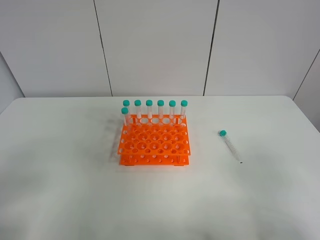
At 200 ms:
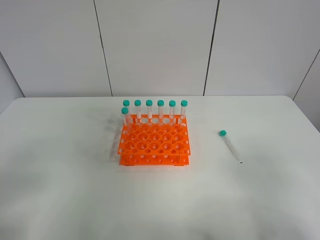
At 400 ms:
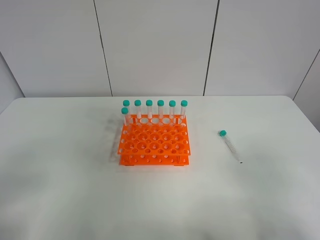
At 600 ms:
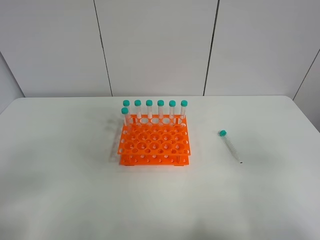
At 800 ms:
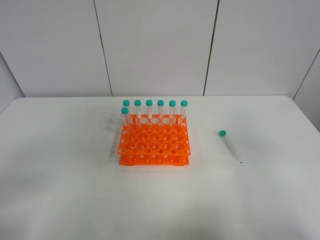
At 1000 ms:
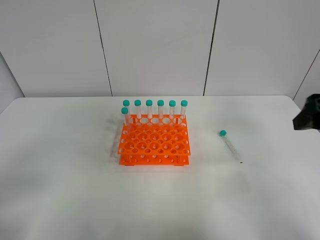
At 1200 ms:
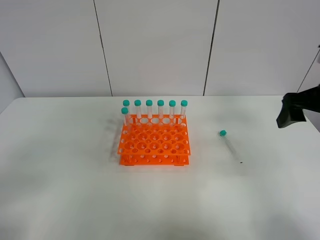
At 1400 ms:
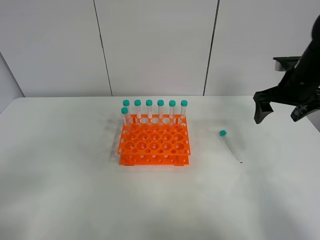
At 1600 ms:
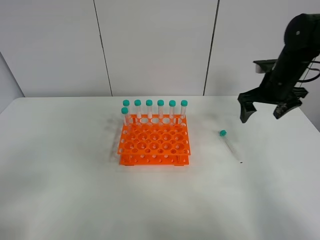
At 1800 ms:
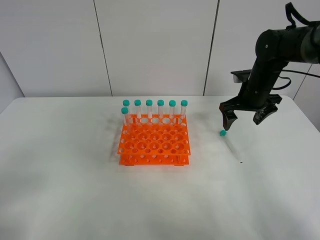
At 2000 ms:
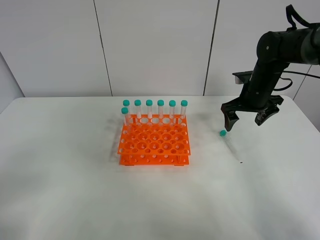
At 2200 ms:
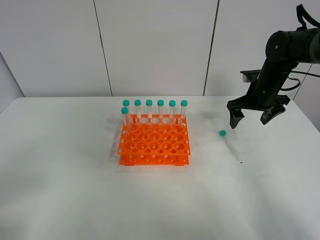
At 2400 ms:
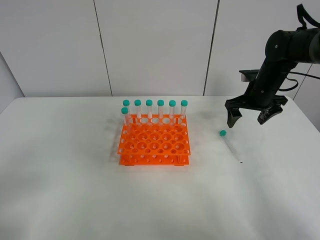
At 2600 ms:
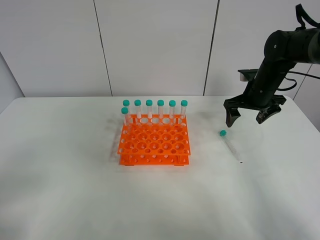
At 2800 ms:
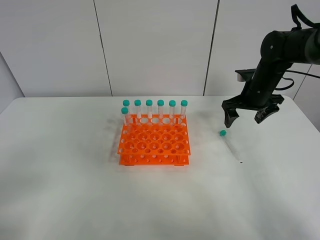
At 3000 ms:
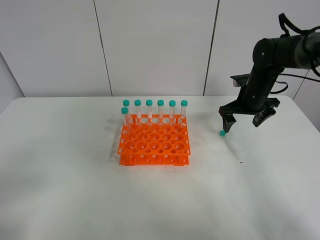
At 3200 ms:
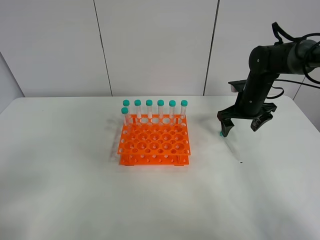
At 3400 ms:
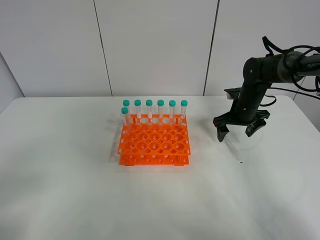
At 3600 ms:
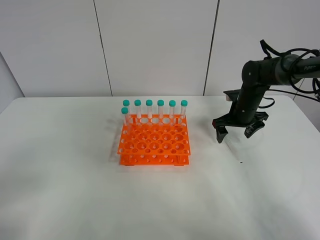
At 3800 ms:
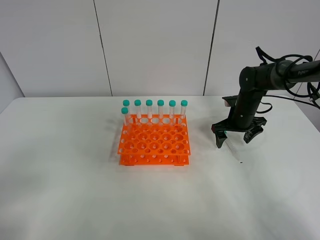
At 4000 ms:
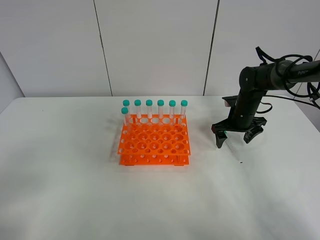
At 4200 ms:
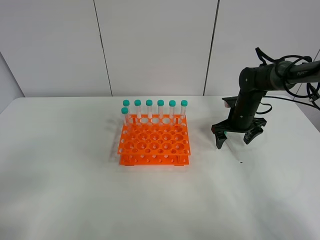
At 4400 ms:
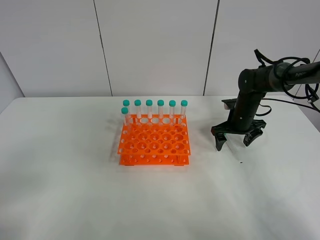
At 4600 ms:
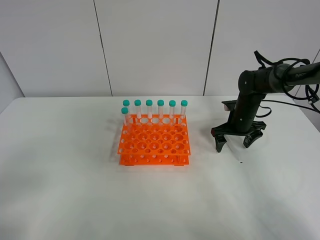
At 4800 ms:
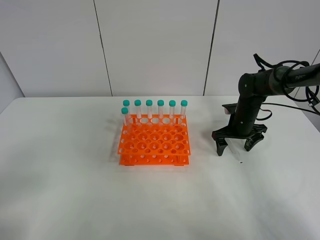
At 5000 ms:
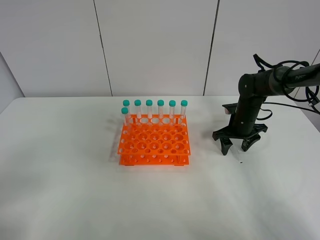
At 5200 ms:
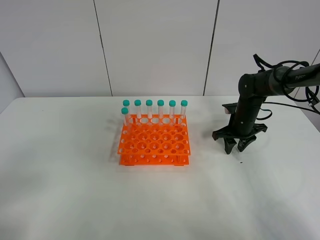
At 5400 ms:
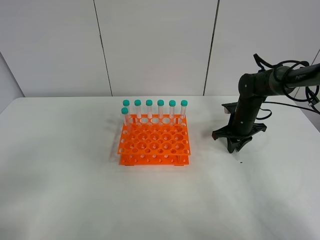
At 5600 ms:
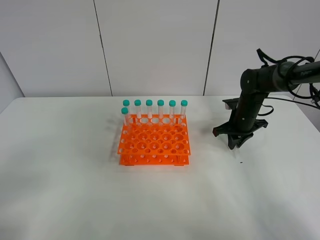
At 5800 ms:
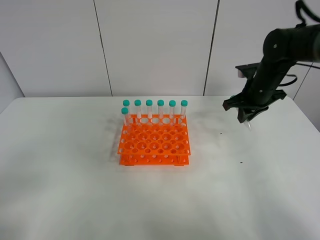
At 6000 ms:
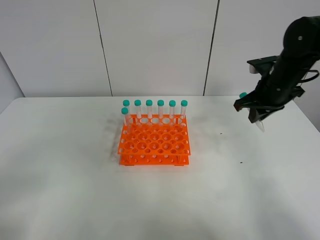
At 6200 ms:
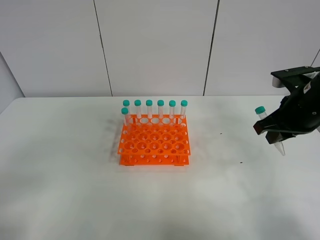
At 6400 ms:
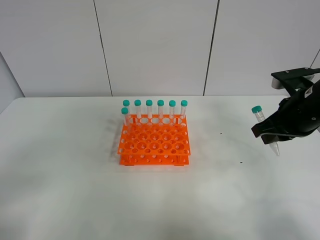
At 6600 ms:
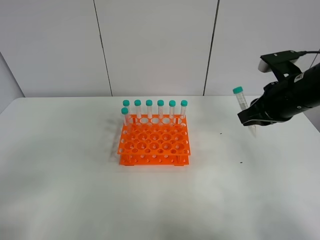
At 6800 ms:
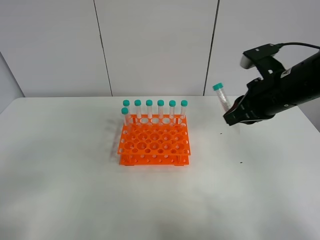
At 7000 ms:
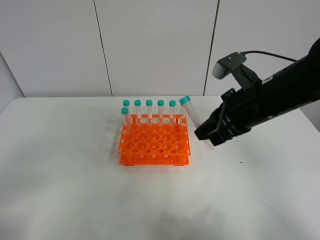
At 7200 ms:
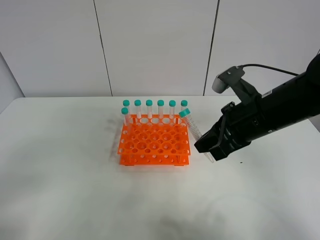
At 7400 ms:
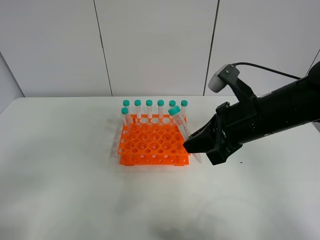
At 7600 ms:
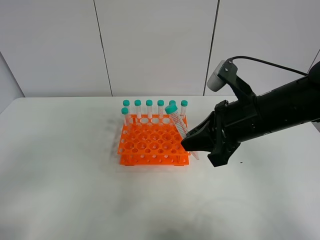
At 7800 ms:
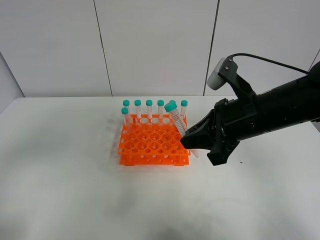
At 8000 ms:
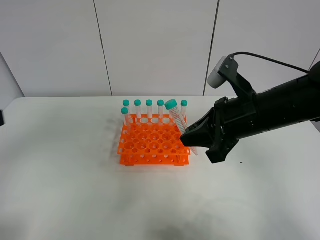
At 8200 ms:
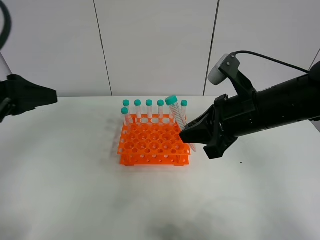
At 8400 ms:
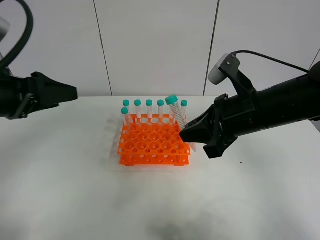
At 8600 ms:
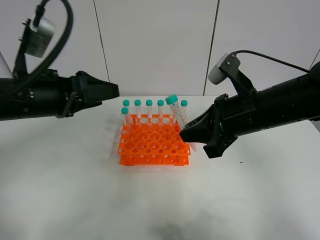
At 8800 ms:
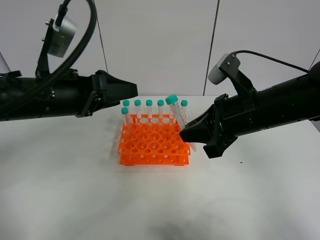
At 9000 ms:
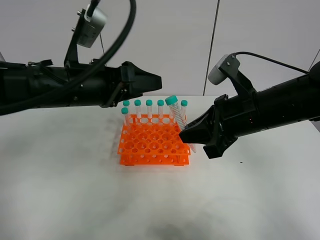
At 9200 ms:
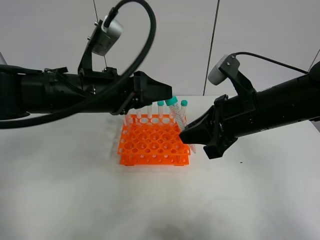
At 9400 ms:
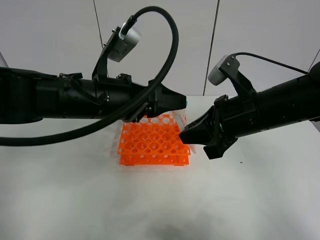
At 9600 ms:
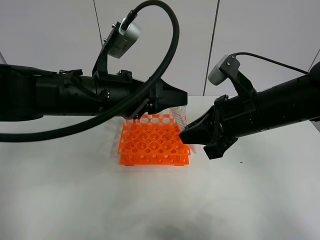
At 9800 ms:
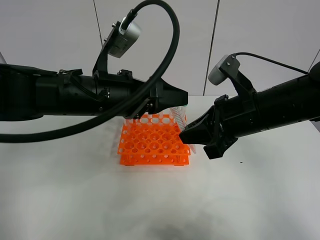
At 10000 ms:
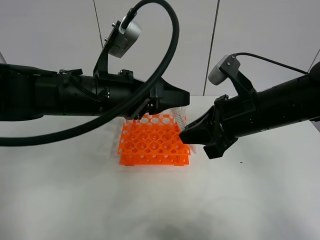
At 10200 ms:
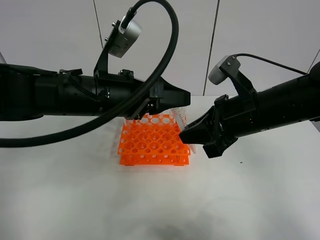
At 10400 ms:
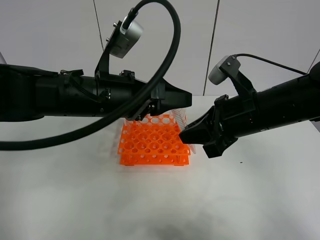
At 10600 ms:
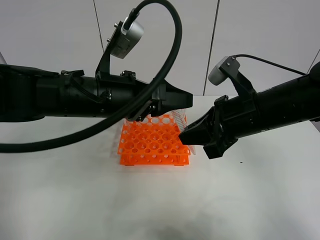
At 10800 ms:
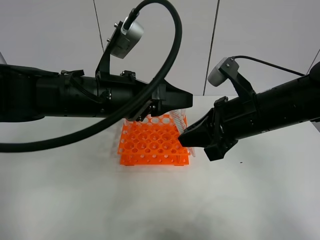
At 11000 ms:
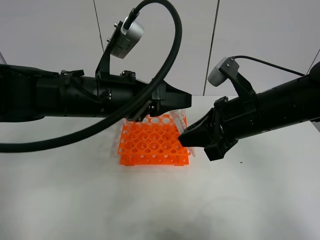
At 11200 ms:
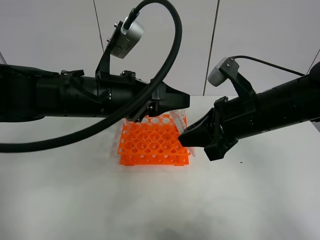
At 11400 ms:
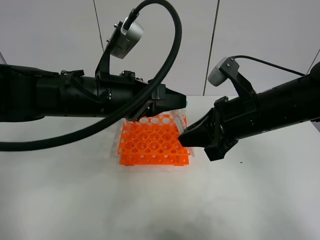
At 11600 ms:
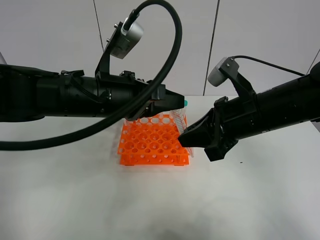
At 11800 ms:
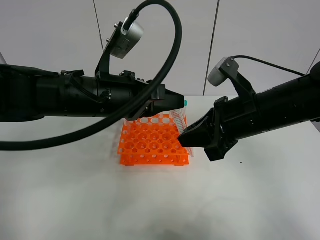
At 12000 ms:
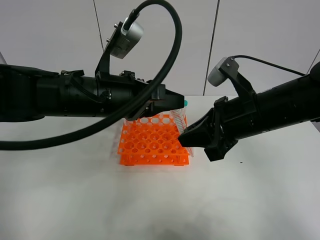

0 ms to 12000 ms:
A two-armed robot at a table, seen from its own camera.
Task of the whole recording: Put the test tube on the table back onto the test tube rack.
Step, 0 ms to 5400 ms: Pick up the test tube with the right gripper.
0 ms to 1600 ms: The right gripper shifts about 40 cm forward.
1600 ms to 3000 ms: The right gripper moves approximately 5 cm.
3000 ms to 4400 ms: The right gripper is displaced downward by roughly 5 cm.
4400 ms to 6000 ms: The right gripper travels upward and backward by roughly 15 cm, and closes.
6000 ms to 7600 ms: The right gripper is displaced backward and to the left by approximately 15 cm.
7600 ms to 9000 ms: The left gripper travels forward and to the right by about 30 cm.
9000 ms to 10400 ms: There are only small adjustments of the grippers.
10400 ms to 12000 ms: The left gripper closes up.

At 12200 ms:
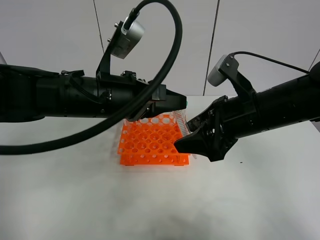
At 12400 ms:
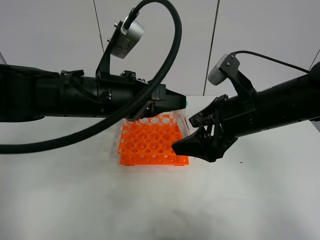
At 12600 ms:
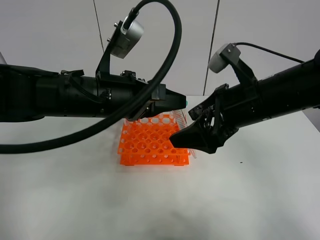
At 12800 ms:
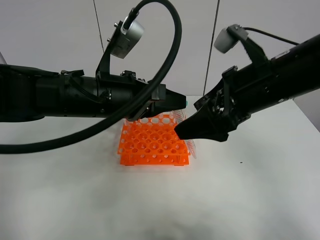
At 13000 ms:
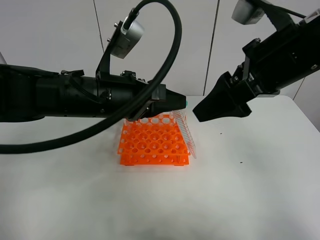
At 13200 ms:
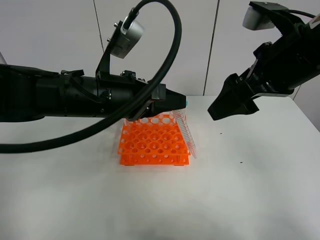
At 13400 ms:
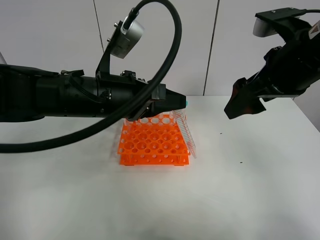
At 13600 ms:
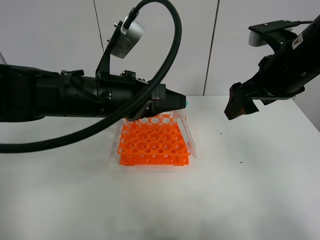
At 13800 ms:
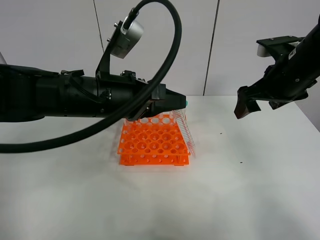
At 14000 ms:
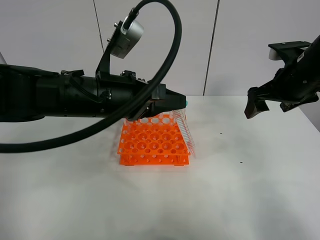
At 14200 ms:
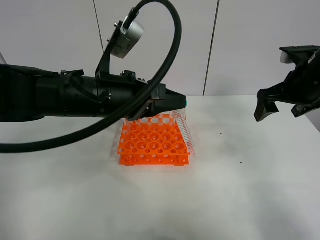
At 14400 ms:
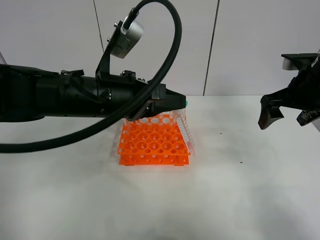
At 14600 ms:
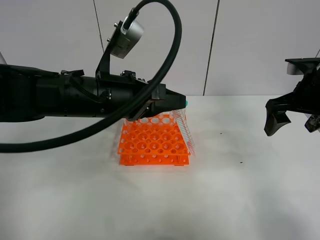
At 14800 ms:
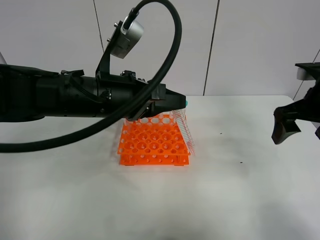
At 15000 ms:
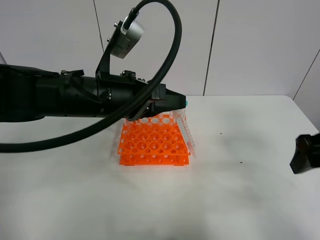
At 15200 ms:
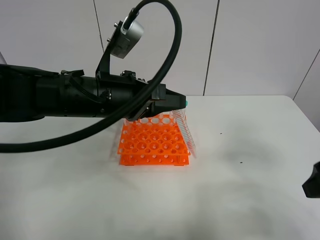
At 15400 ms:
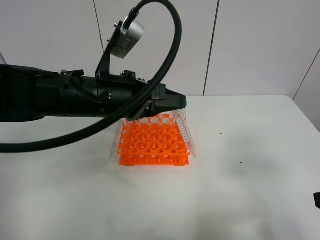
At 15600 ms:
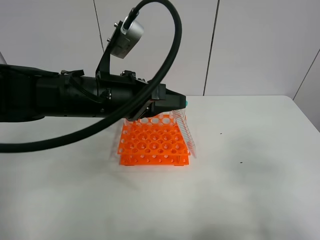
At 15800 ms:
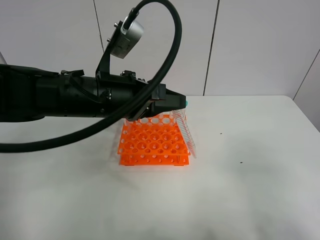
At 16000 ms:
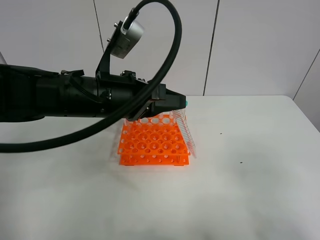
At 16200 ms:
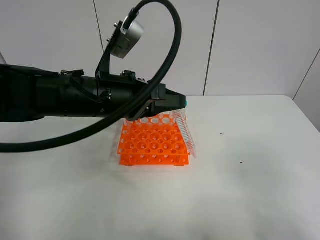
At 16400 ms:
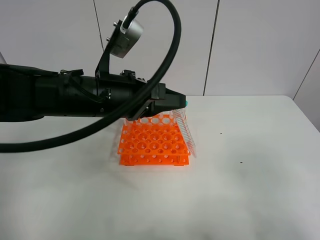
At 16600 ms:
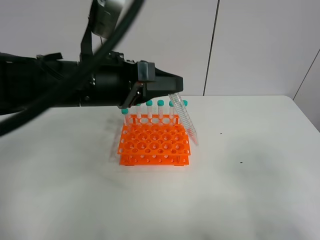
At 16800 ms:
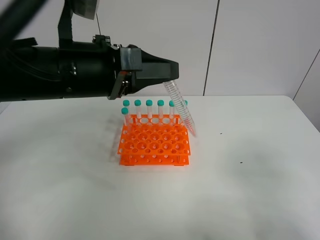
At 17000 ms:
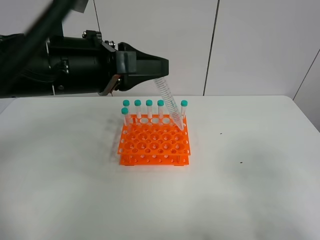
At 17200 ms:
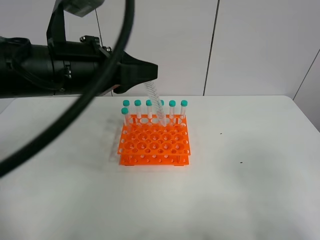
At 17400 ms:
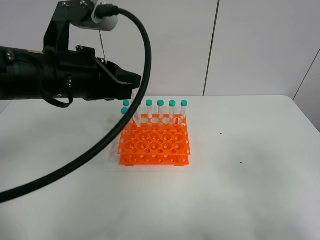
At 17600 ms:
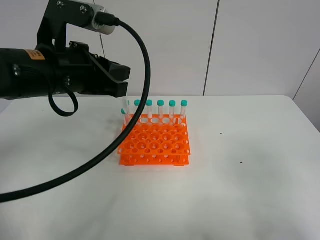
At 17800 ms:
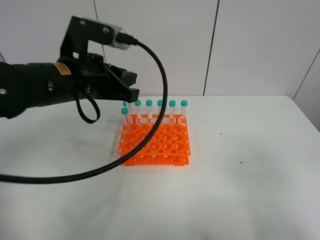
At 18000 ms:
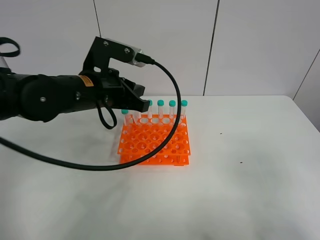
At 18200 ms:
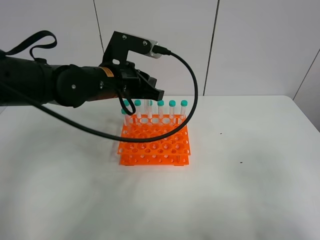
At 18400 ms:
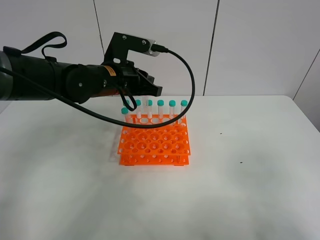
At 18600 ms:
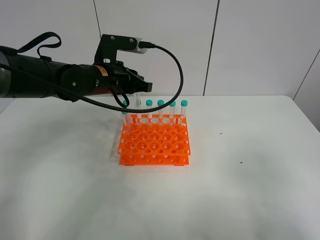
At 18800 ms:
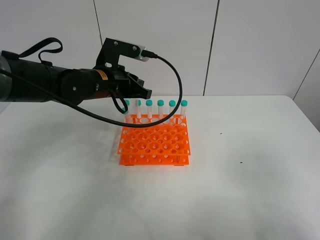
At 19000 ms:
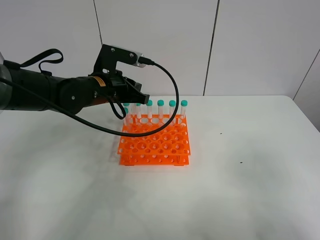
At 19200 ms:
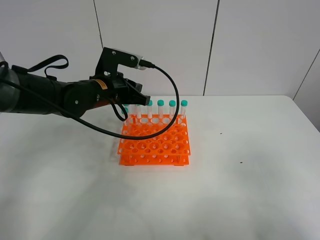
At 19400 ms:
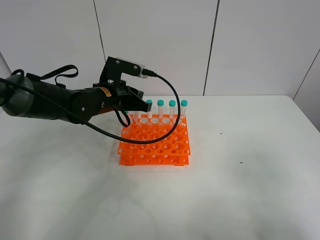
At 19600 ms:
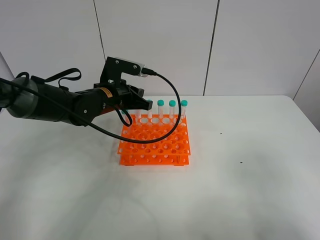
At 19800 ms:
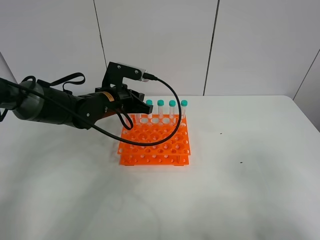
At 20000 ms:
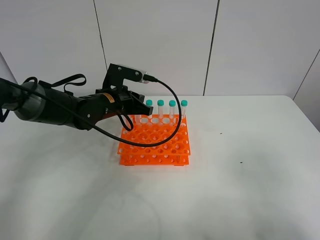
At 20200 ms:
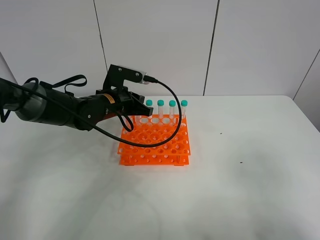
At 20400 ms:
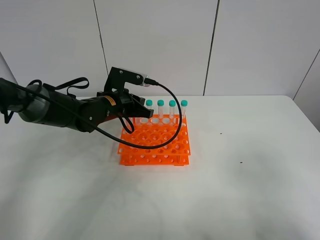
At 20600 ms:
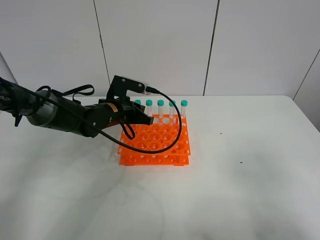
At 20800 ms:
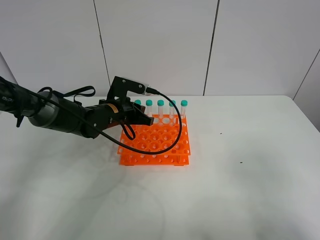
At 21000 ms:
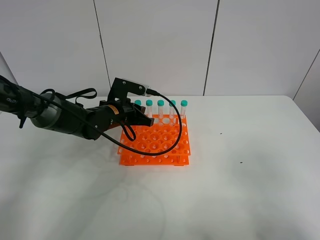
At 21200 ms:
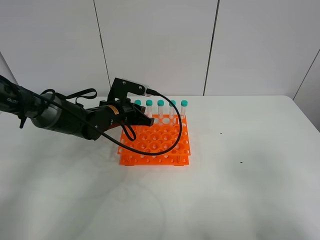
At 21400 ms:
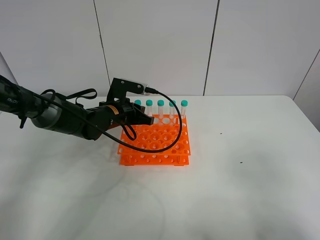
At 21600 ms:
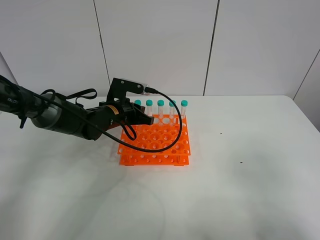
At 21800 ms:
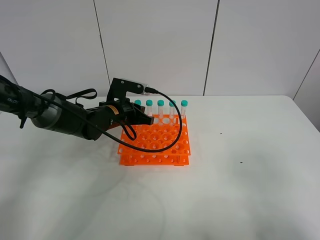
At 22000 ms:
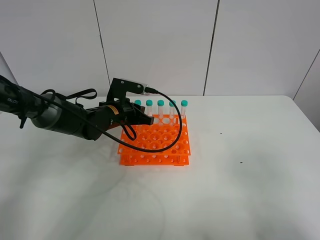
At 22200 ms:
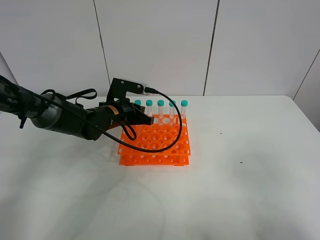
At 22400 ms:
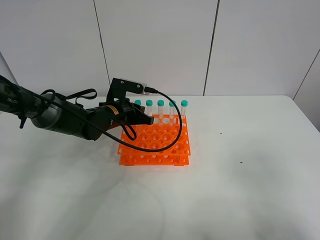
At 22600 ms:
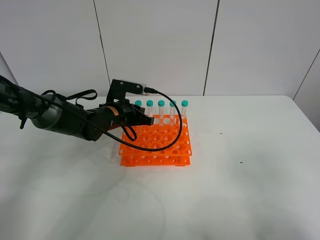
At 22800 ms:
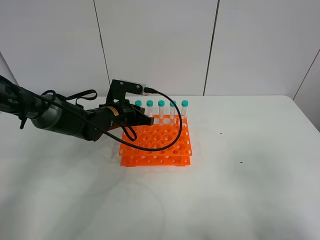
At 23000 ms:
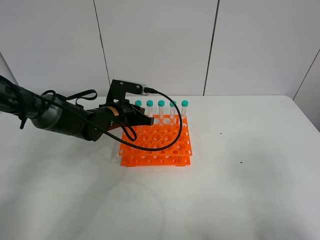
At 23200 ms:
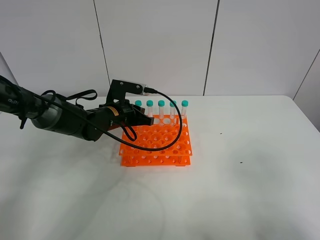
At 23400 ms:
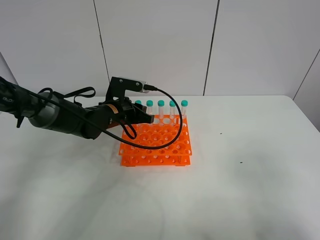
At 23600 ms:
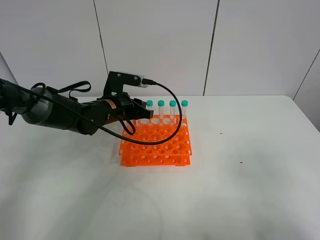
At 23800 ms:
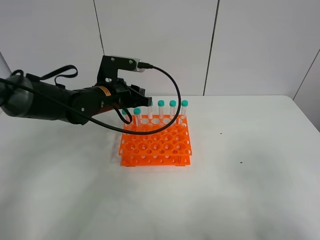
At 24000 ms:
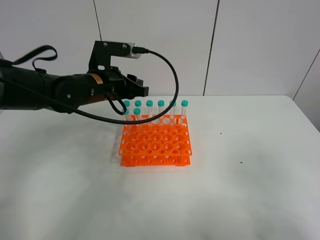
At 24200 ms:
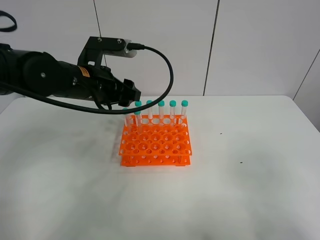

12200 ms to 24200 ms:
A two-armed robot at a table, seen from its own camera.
Task of the whole recording: Put the test tube on the table back onto the test tube rack.
Step, 12400 ms to 23200 ms: Place the test tube on the test tube rack with the left gripper.
12200 ms to 13800 ms: The right gripper is displaced to the right and forward by approximately 10 cm, and goes upward and returns, roughly 10 cm each way.
13800 ms to 15200 ms: The right gripper moves backward, approximately 20 cm.
15200 ms to 16600 ms: The right gripper heads backward, covering about 10 cm.
16600 ms to 18200 ms: The left gripper goes roughly 10 cm forward.
18200 ms to 19800 ms: The left gripper shifts some 10 cm downward.
19800 ms to 21200 ms: The grippers move only a little.
21200 ms to 22600 ms: Both grippers stay put.
22600 ms to 24200 ms: The left gripper moves upward and backward, some 15 cm, and opens up.
